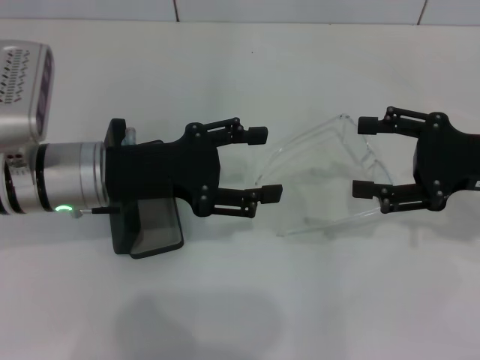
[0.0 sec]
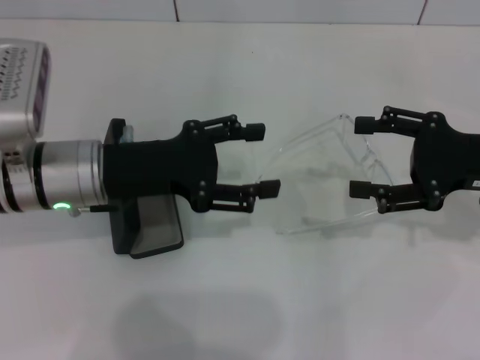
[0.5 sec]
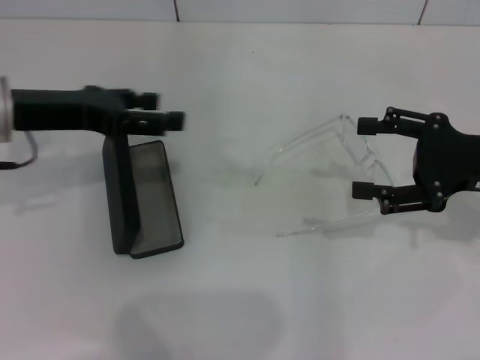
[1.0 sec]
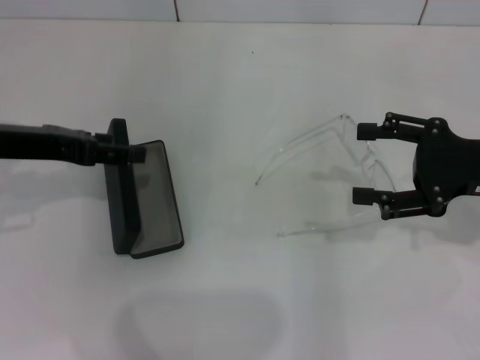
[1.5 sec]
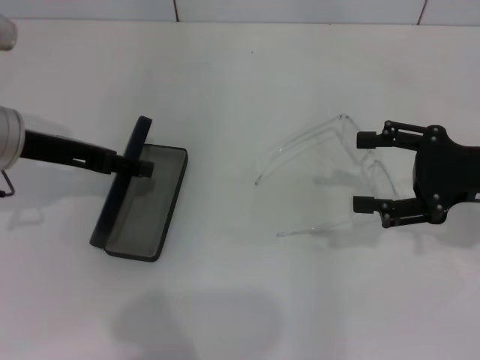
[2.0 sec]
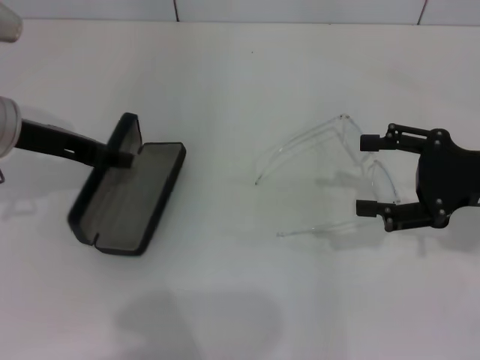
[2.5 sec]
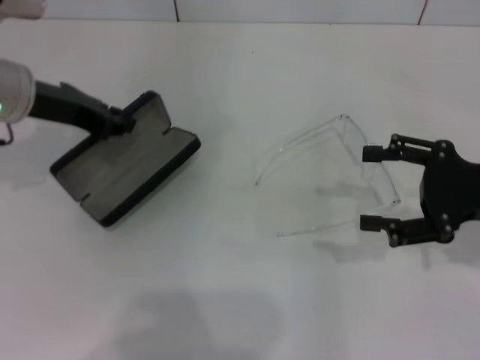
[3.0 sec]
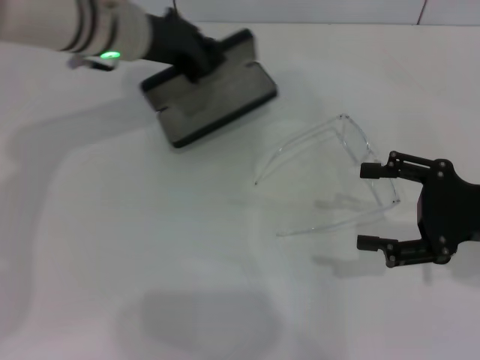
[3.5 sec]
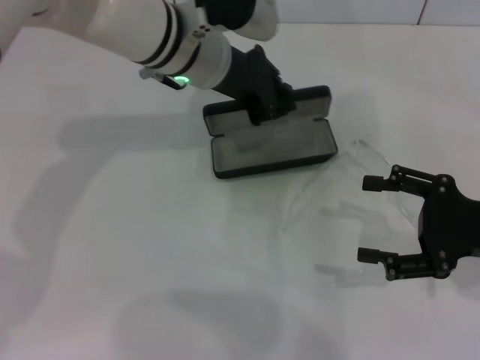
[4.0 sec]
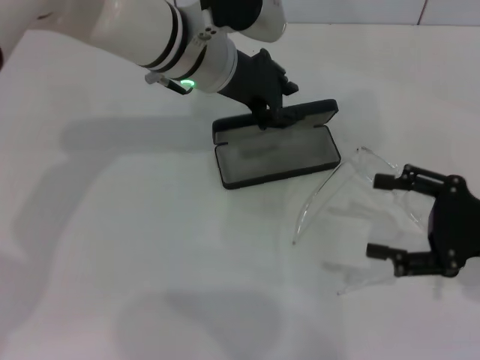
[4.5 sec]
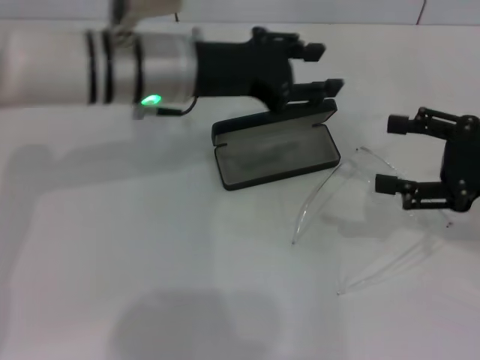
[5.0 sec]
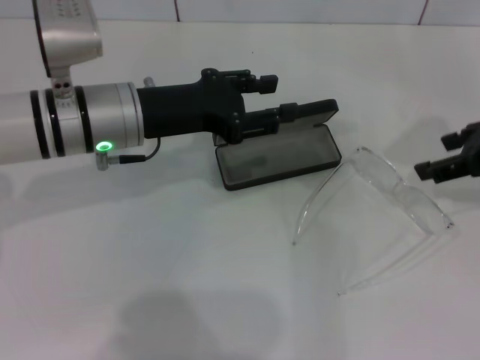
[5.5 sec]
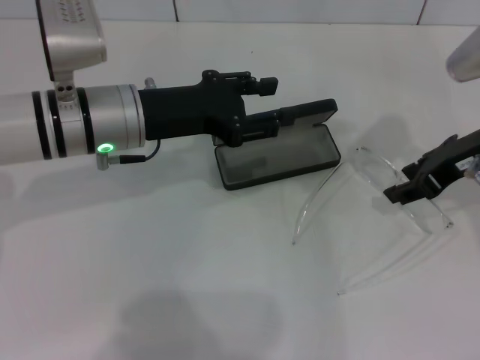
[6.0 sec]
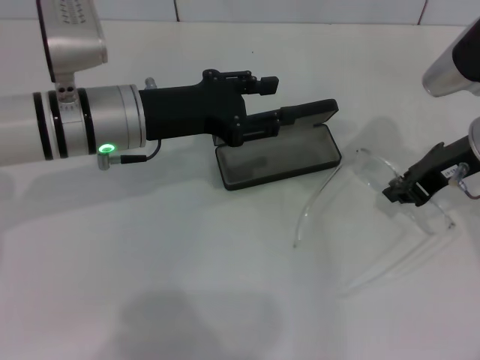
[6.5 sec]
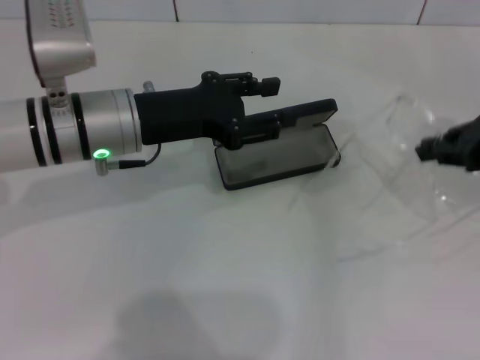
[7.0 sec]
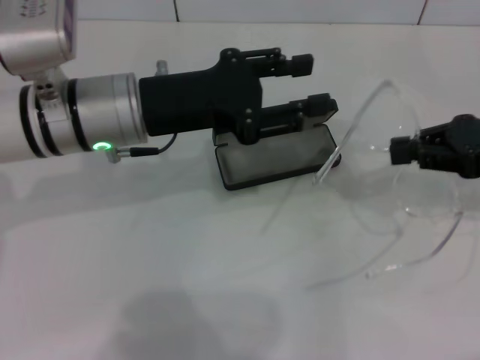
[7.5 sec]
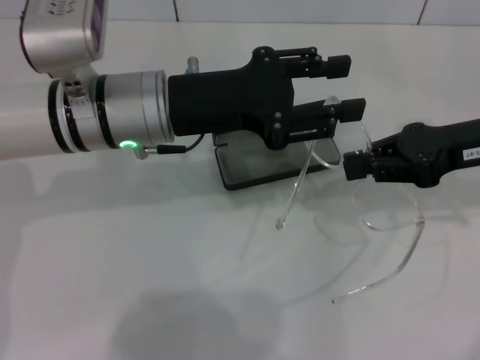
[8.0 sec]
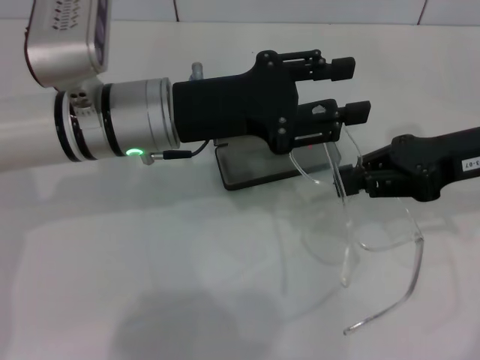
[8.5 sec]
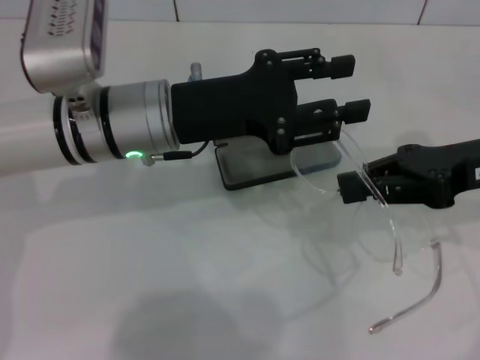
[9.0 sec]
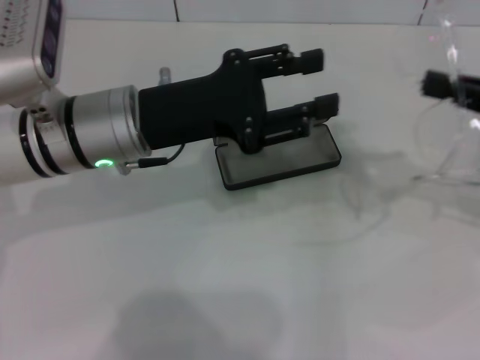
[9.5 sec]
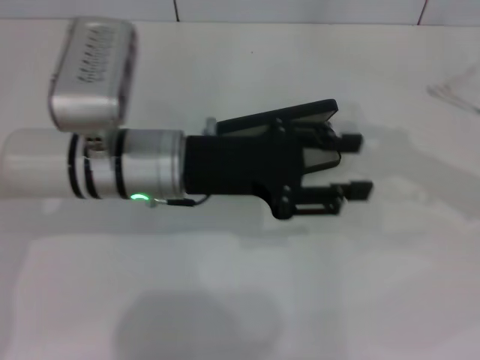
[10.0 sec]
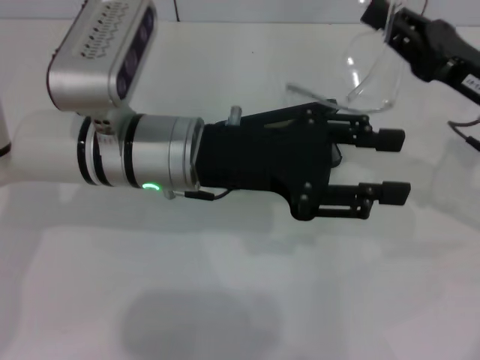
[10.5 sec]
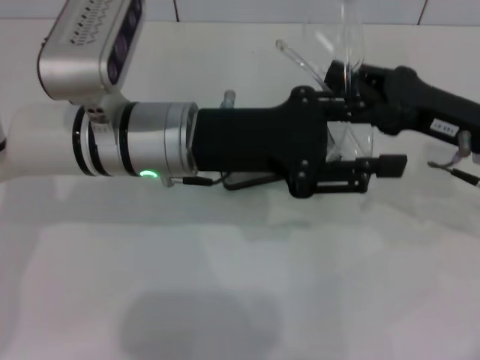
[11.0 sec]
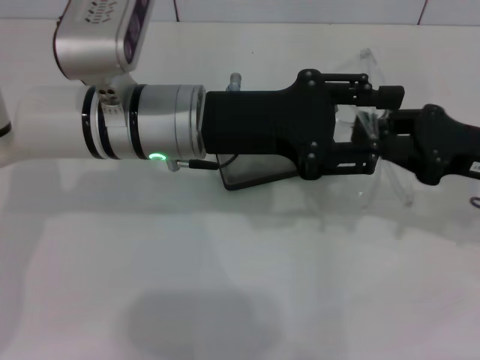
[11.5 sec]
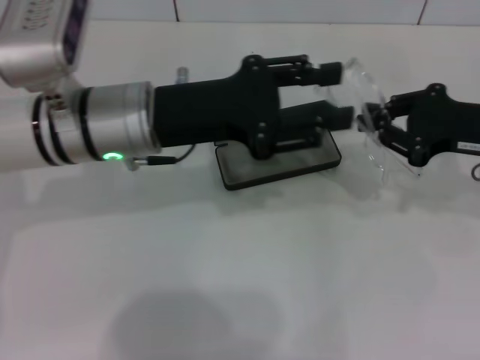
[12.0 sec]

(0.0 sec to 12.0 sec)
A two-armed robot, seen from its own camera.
Step, 0.0 sec - 2.0 sec: Grab the glasses case with your left hand.
Step, 2.5 sec - 4.0 sec: Place the glasses case in the center of the table with your left hand.
Step, 4.5 sec - 6.0 sec: Grab the eyeglass frame with your right hand.
Step, 6.5 sec - 11.0 sec: Fold the frame with your left hand.
0.0 sec - 2.0 sec: The left gripper shifts roughly 5 cm to the left.
2.0 sec - 4.0 sec: The right gripper ends up approximately 5 cm from where it was, while the left gripper travels to the right and forward by roughly 20 cm, and closes its fingers.
4.0 sec - 6.0 sec: The left gripper is displaced to the left and backward by approximately 10 cm, and opens its fingers. The right gripper is displaced forward and upward by approximately 10 cm.
6.0 sec - 8.0 sec: The right gripper travels to the right and back again, about 5 cm each way, and closes up.
8.0 sec - 10.0 sec: The right gripper heads to the right, covering some 5 cm.

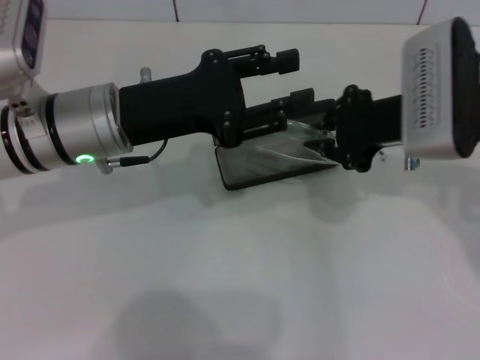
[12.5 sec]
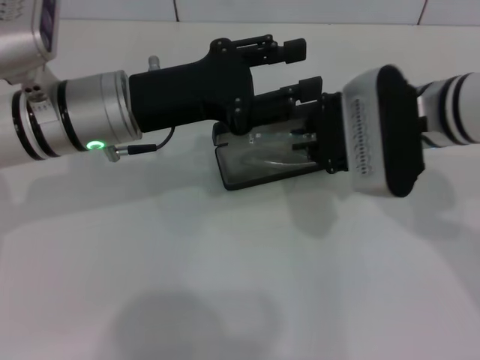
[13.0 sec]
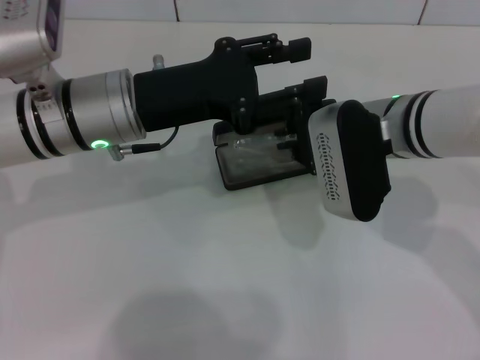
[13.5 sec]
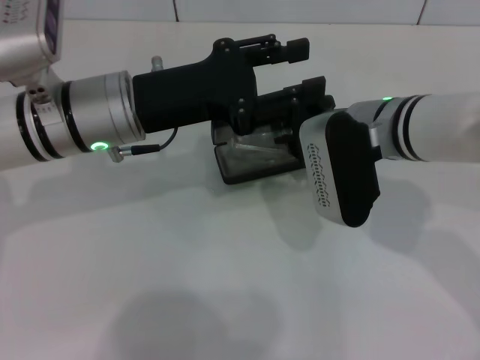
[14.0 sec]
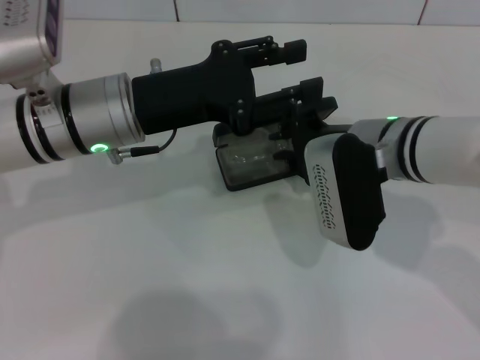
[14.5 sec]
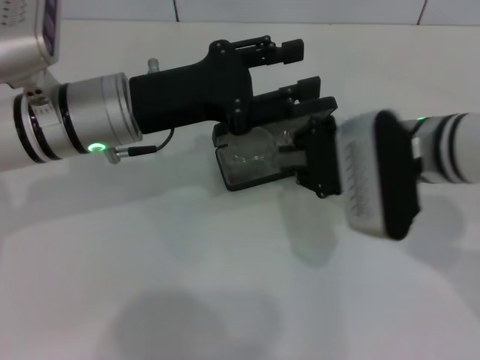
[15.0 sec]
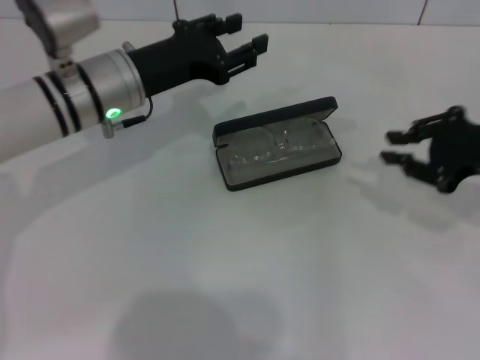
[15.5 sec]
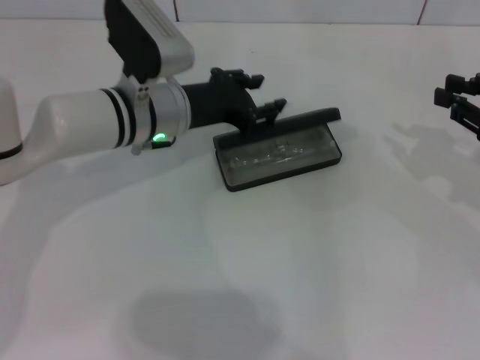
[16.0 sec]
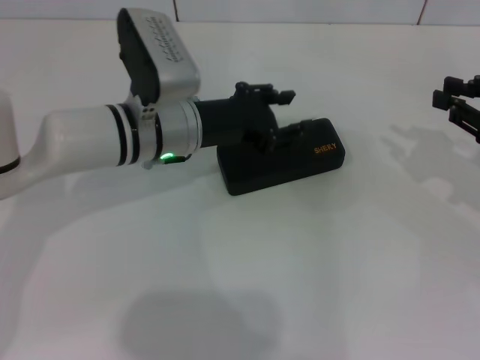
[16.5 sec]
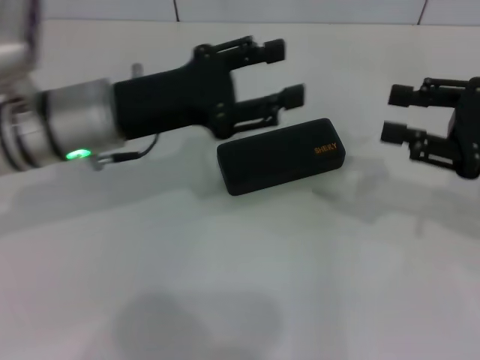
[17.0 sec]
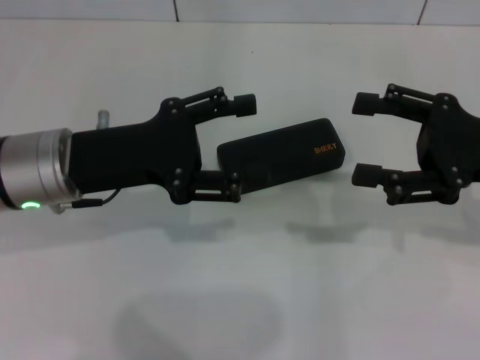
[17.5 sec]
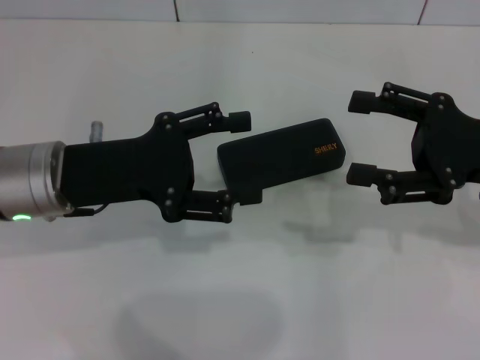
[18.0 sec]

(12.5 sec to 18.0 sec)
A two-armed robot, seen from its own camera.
Step, 12.5 sec - 14.5 sec: Put the glasses into the case with your right hand.
Step, 15.0 sec - 16.0 sec: Close the glasses case with your left hand.
12.5 sec - 14.5 sec: The right gripper travels to the left and downward by roughly 10 cm.
14.5 sec - 16.0 sec: The left gripper travels downward and forward by approximately 10 cm. Meanwhile the right gripper travels to the right by about 20 cm.
16.0 sec - 18.0 sec: The left gripper goes roughly 15 cm backward and to the left, while the right gripper moves to the left, approximately 5 cm, and opens its fingers.

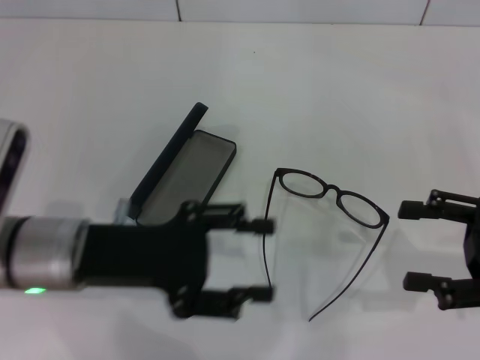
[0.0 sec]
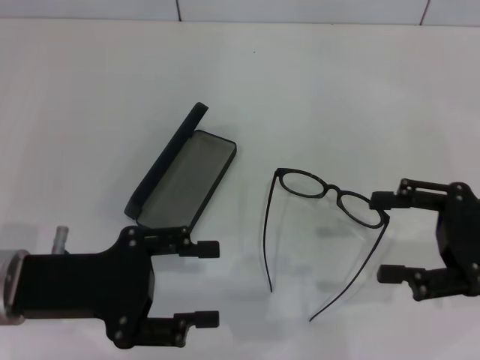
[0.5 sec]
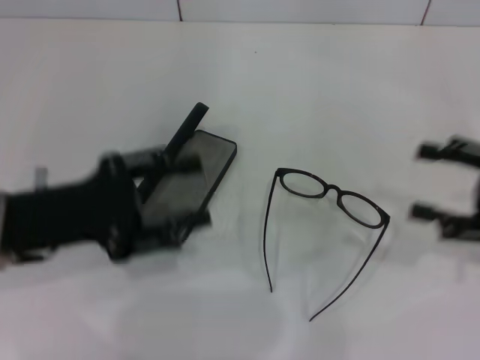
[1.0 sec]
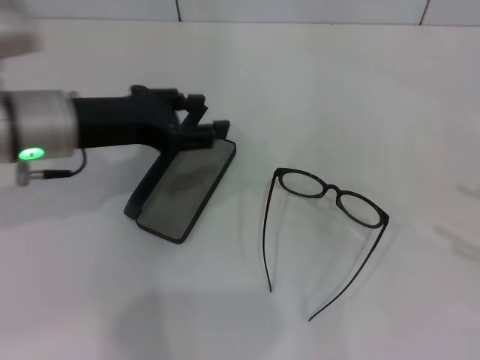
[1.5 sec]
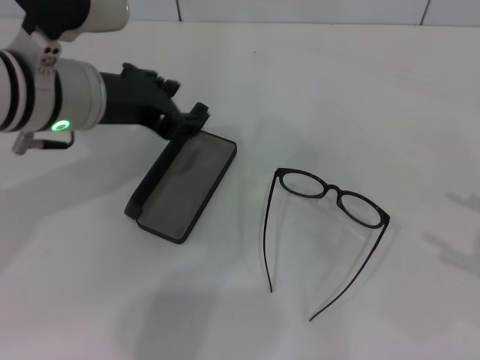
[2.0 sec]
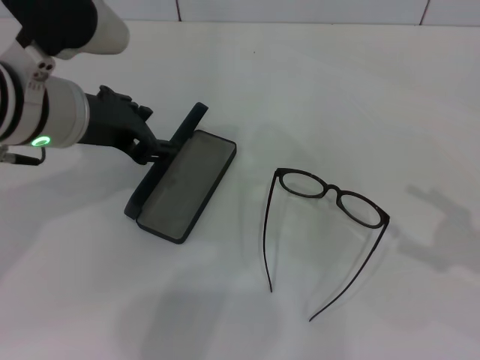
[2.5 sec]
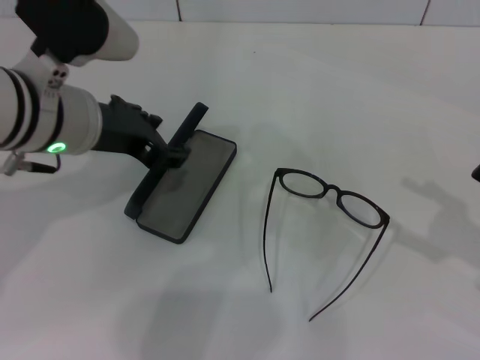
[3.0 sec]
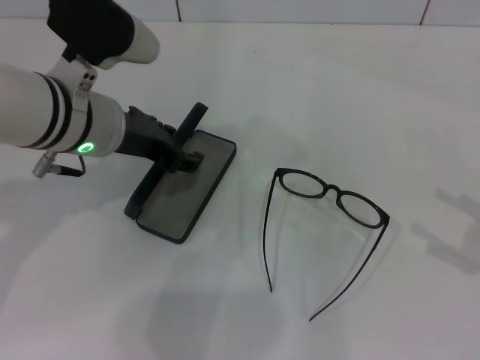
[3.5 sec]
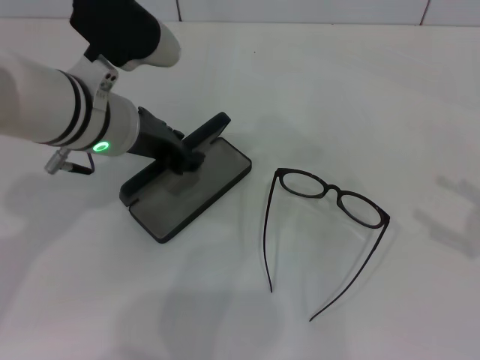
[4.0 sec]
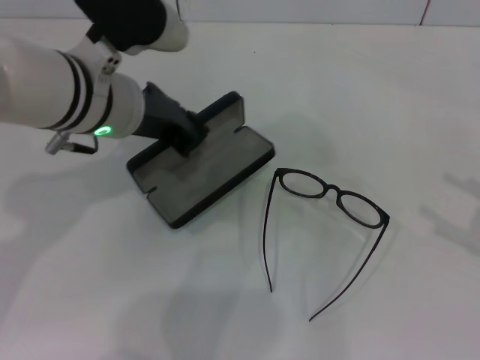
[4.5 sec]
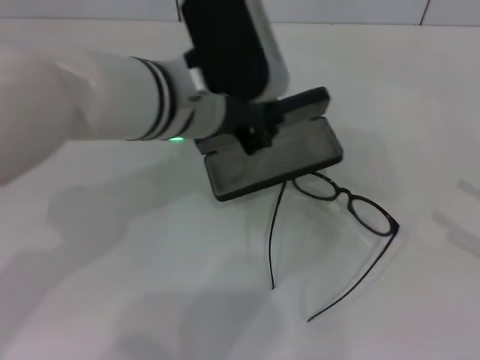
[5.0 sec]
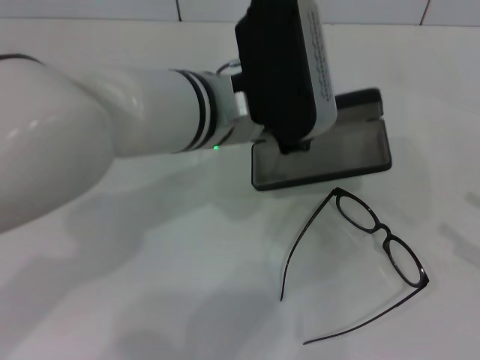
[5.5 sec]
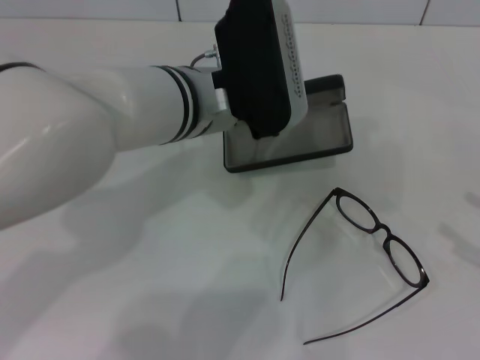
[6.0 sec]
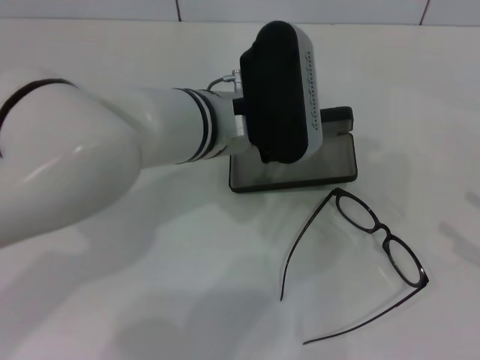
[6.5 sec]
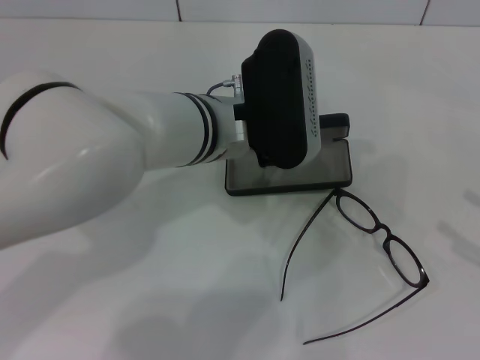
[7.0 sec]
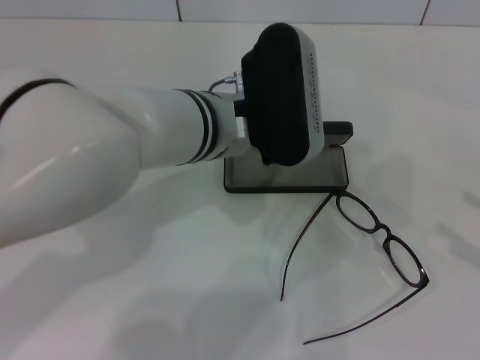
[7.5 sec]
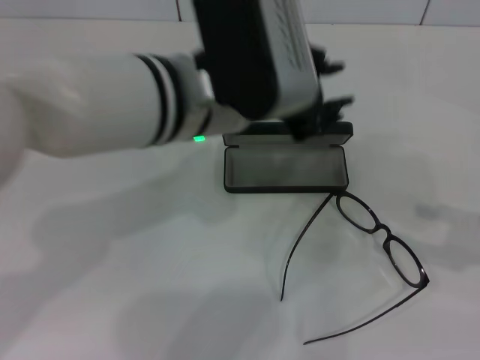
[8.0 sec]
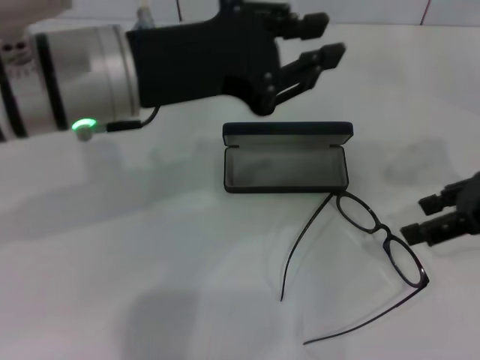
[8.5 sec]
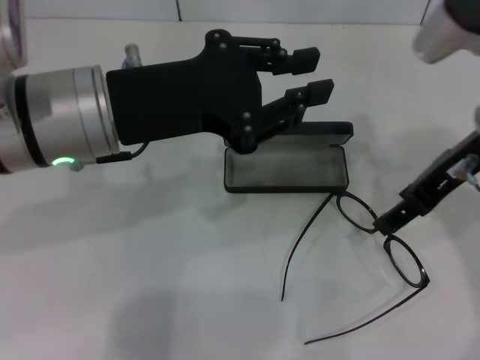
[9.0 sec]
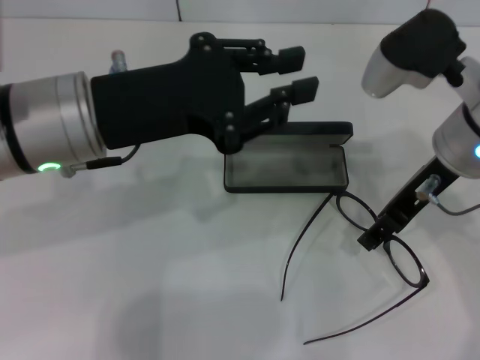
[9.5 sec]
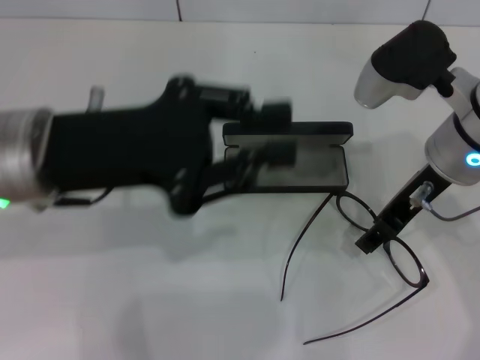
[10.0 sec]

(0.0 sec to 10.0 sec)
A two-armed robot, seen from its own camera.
Step, 0.0 sec - 4.0 sec: Grab the glasses case with your left hand.
Step, 4.5 sec - 7.5 sec: Place the glasses case in the center of the table with your left hand.
0.0 sec - 2.0 sec: The right gripper shifts approximately 10 cm to the right, while the left gripper shifts about 15 cm upward and forward.
2.0 sec - 4.0 sec: The grippers make only small movements.
4.0 sec - 6.0 sec: The left gripper shifts some 10 cm to the right, and closes up.
6.0 sec - 8.0 sec: The right gripper heads forward, covering some 5 cm. The left gripper moves some 5 cm.
8.0 sec - 10.0 sec: The right gripper heads to the left and forward, covering about 25 cm; the left gripper heads to the left, covering approximately 15 cm.
